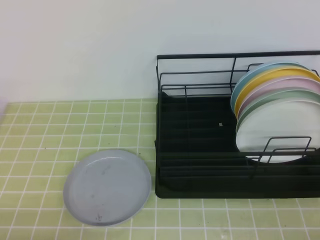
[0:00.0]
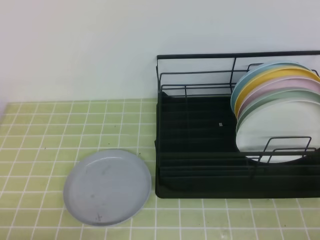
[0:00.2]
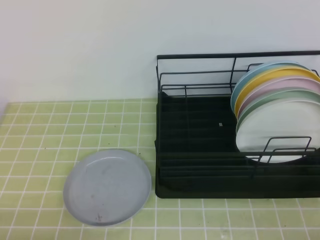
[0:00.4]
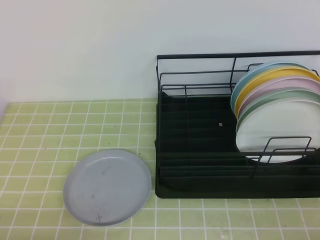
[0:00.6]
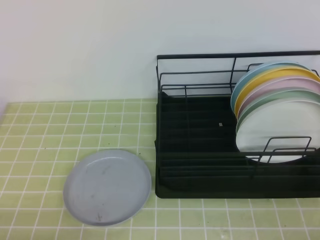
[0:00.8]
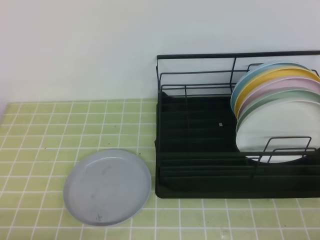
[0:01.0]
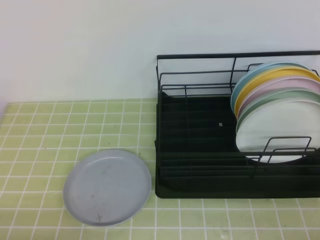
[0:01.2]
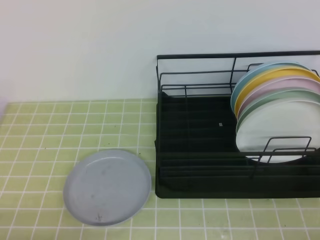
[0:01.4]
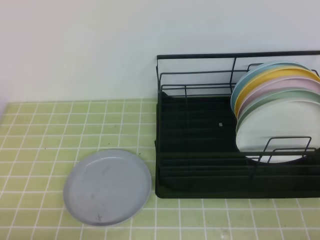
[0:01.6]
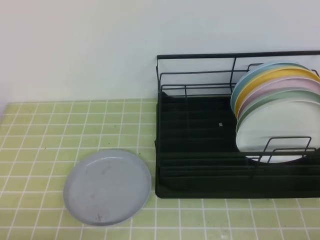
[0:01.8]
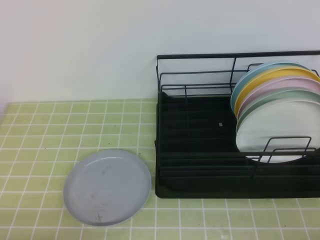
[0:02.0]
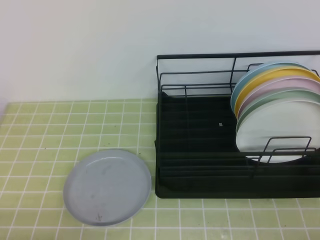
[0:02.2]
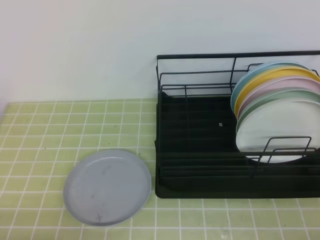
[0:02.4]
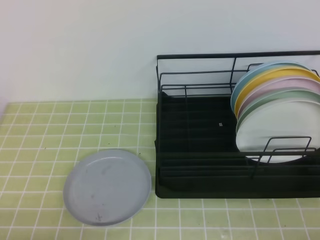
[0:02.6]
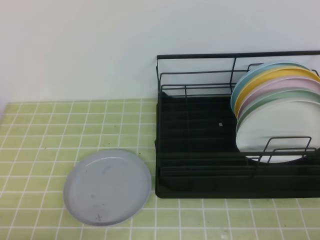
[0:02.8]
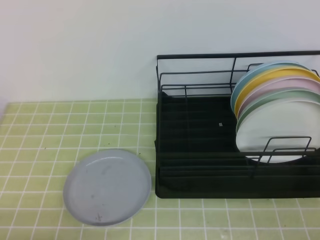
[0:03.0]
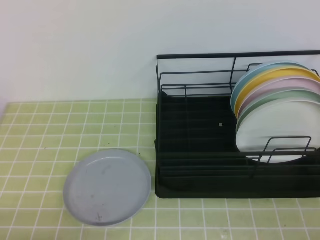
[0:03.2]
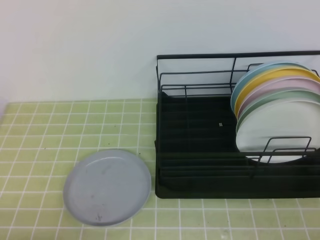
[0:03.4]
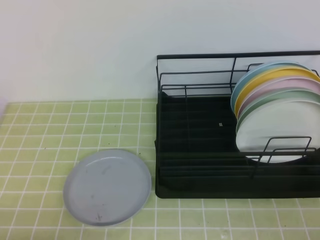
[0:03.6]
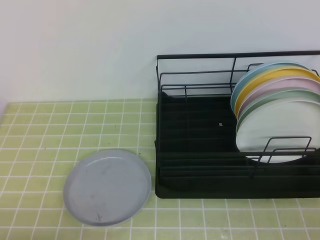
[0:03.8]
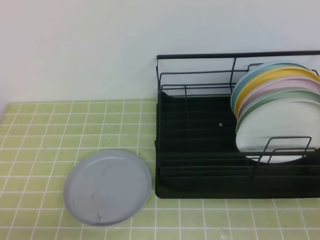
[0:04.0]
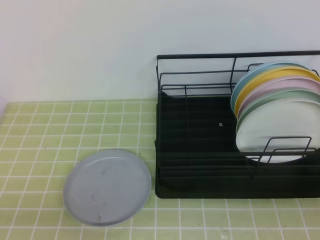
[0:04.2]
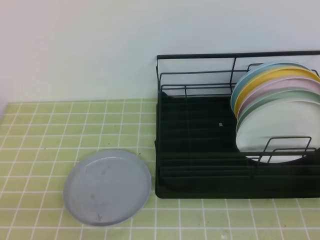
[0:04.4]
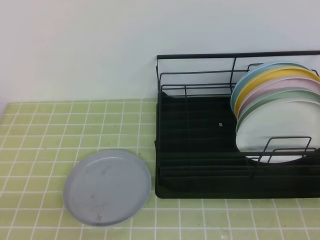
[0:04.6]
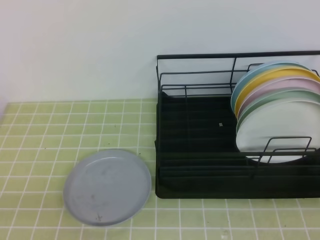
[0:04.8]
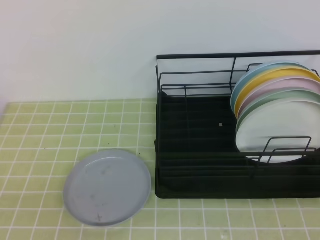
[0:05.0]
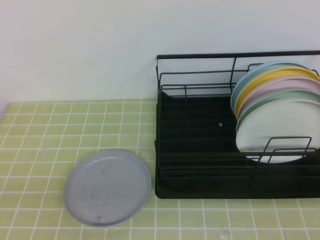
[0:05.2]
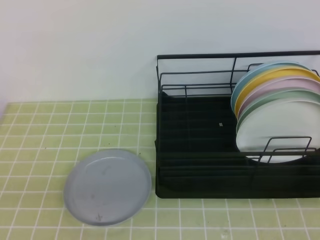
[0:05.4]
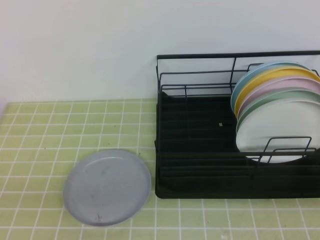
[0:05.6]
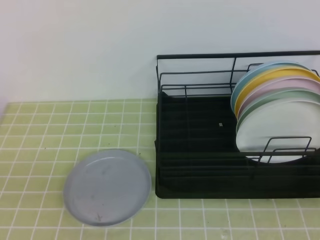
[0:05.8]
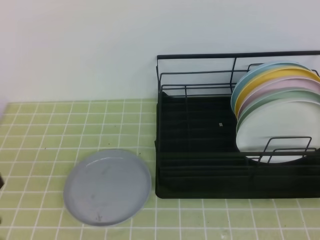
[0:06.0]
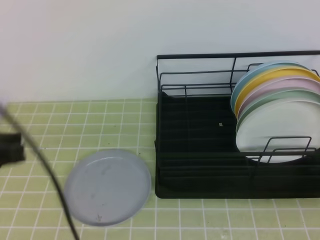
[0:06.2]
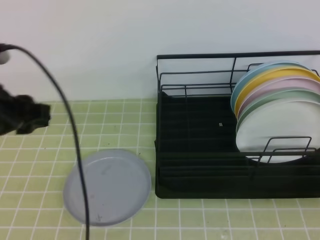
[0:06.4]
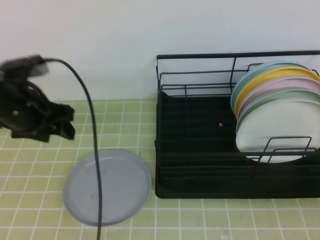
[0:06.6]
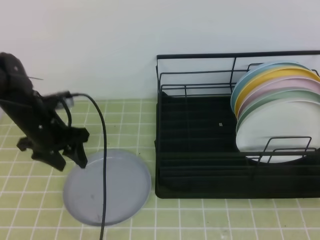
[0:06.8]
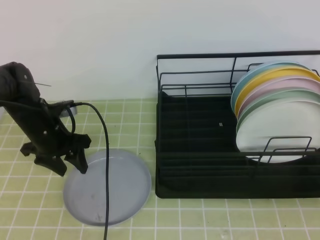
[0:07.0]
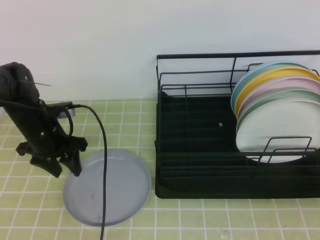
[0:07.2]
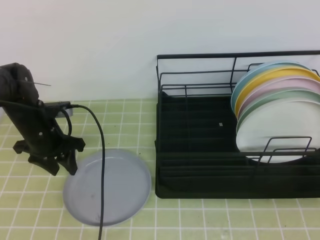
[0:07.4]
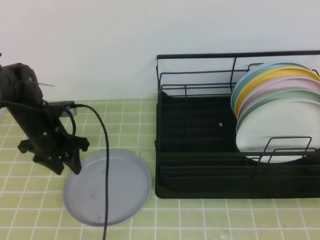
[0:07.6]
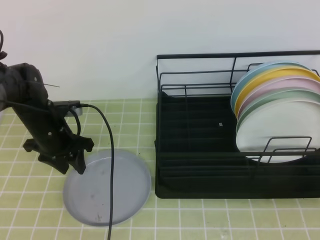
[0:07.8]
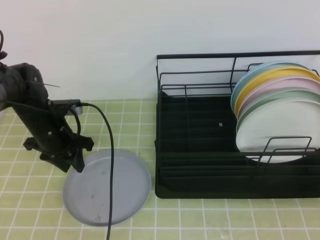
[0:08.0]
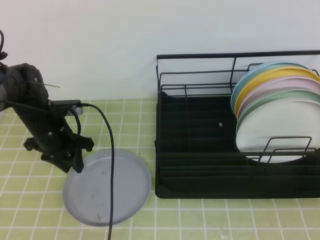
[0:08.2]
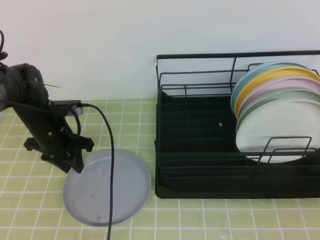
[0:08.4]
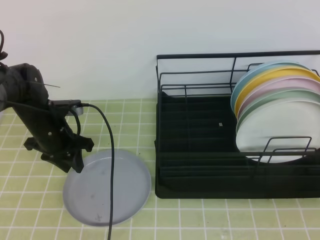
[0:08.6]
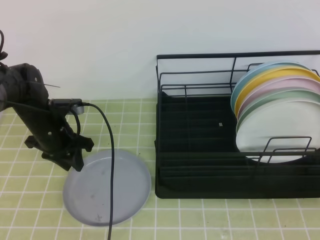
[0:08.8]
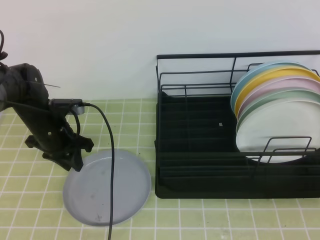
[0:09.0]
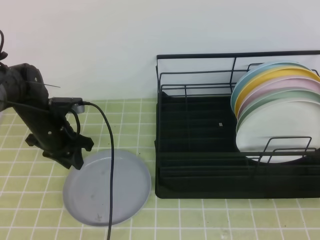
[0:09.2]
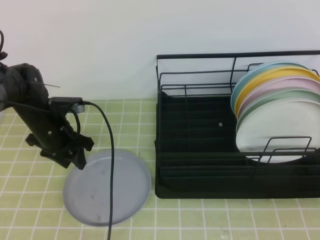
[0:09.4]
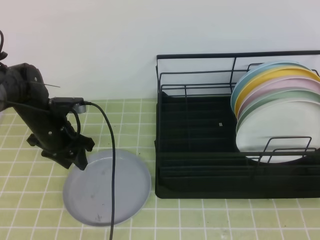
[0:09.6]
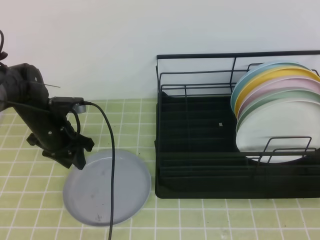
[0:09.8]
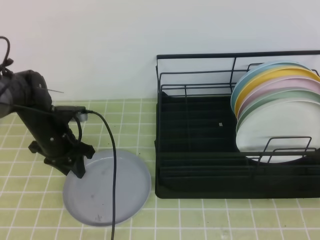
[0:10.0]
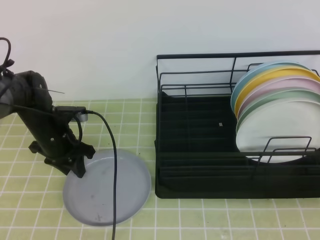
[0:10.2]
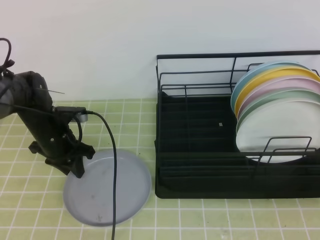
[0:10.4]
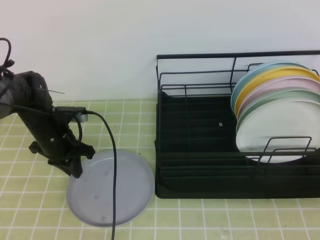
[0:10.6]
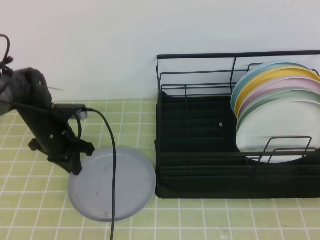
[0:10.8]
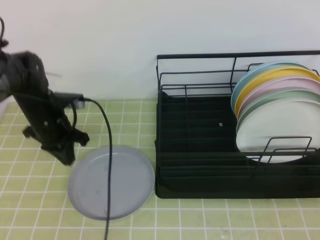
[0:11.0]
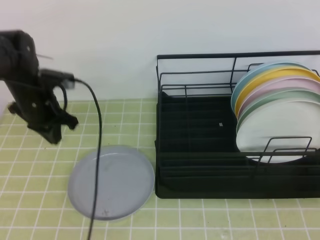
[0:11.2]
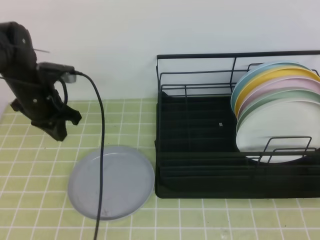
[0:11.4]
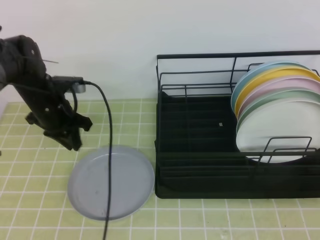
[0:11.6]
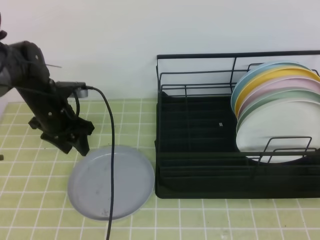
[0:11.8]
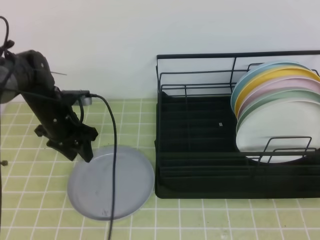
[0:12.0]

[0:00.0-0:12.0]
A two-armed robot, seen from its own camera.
0:00.0 to 0:03.0: Both grippers stay about where they are.
0:06.0 to 0:07.6: The left gripper is displaced forward and downward by roughly 35 cm, and opens its fingers.
0:07.6 to 0:09.0: The left gripper closes its fingers.
0:09.0 to 0:10.4: The grippers move only a little.
0:10.4 to 0:12.0: The left gripper opens.

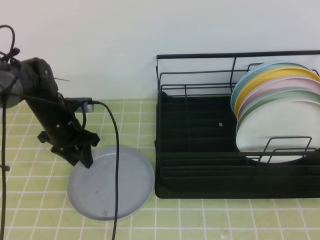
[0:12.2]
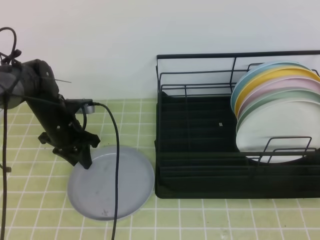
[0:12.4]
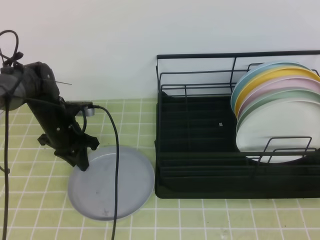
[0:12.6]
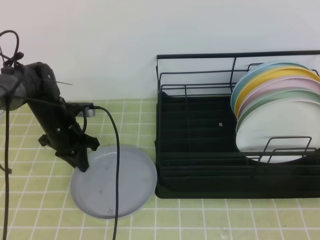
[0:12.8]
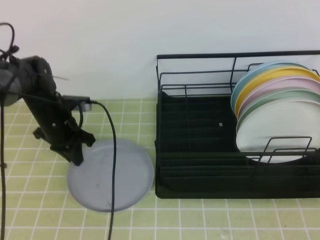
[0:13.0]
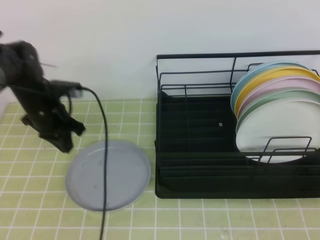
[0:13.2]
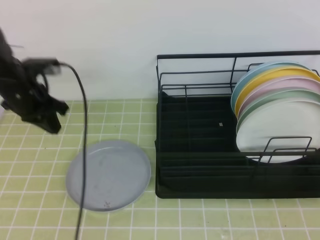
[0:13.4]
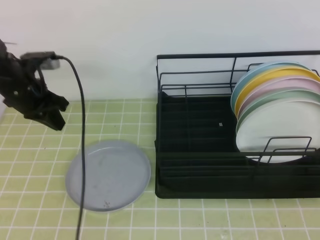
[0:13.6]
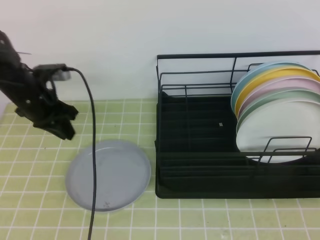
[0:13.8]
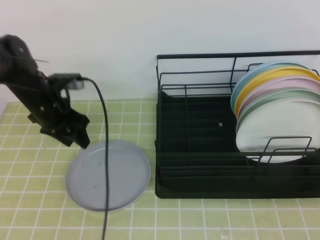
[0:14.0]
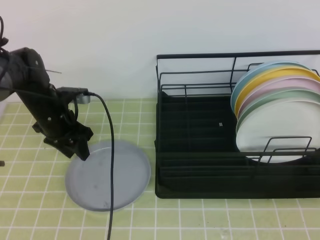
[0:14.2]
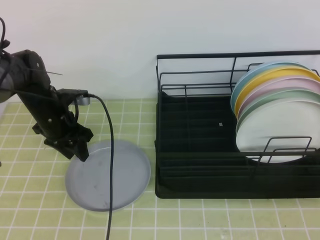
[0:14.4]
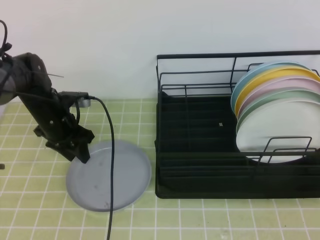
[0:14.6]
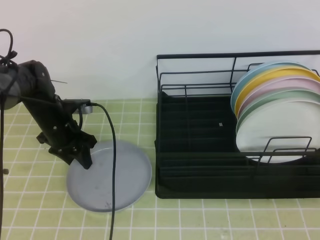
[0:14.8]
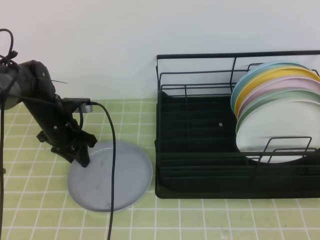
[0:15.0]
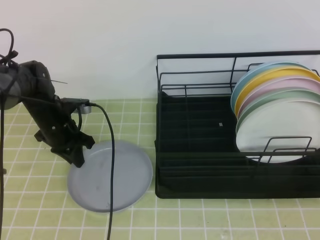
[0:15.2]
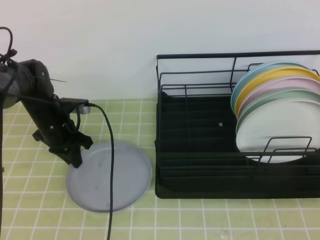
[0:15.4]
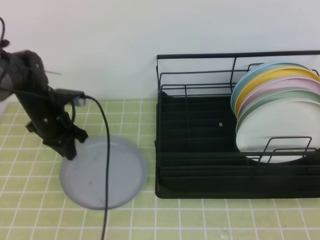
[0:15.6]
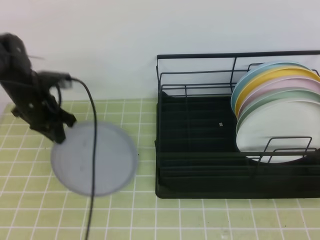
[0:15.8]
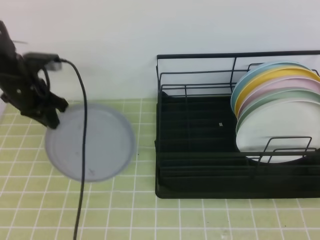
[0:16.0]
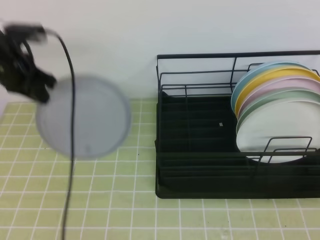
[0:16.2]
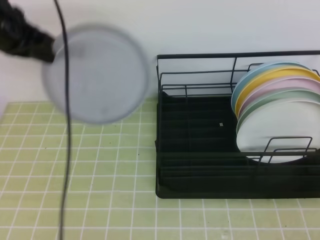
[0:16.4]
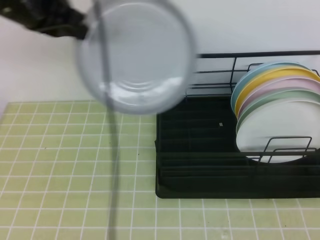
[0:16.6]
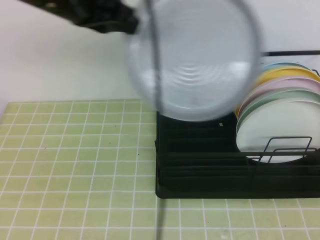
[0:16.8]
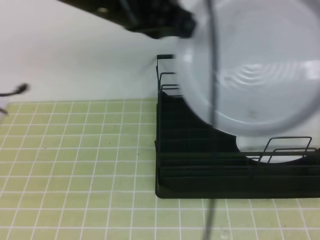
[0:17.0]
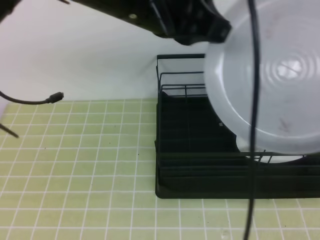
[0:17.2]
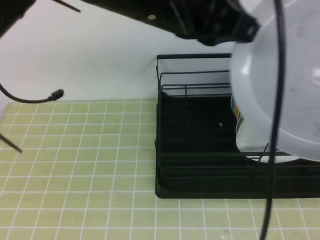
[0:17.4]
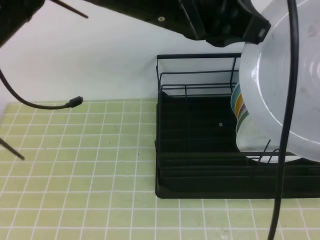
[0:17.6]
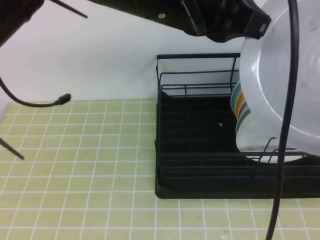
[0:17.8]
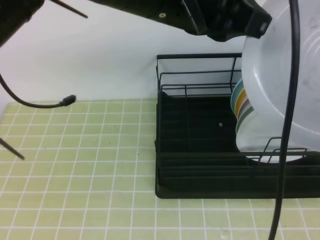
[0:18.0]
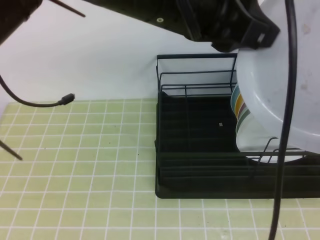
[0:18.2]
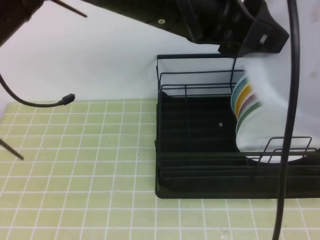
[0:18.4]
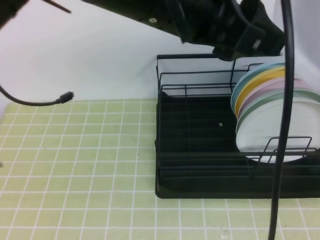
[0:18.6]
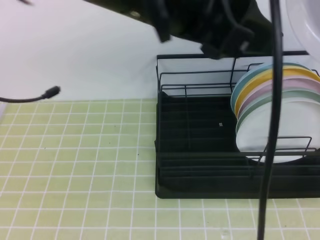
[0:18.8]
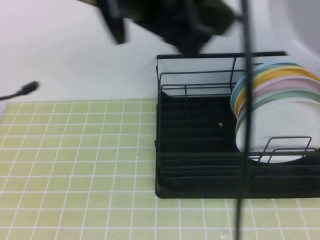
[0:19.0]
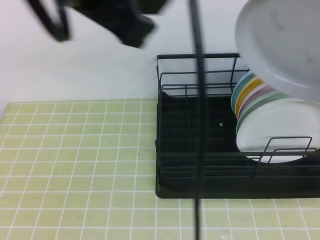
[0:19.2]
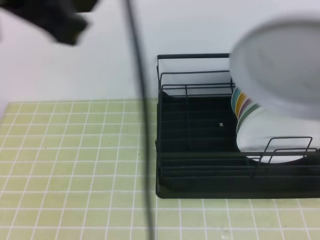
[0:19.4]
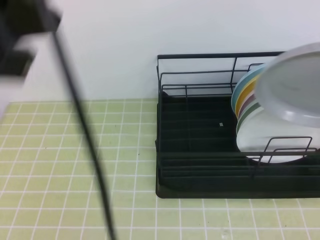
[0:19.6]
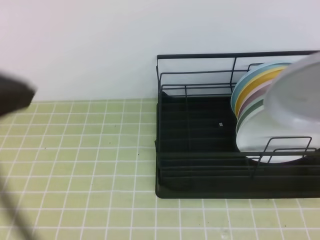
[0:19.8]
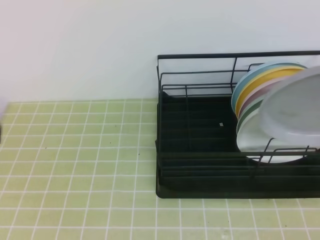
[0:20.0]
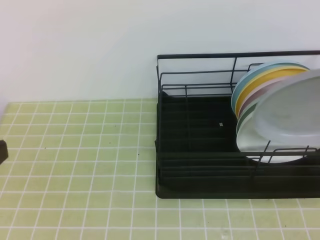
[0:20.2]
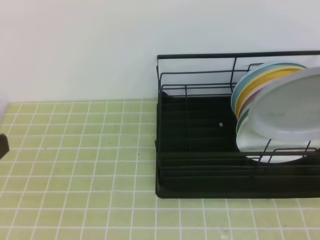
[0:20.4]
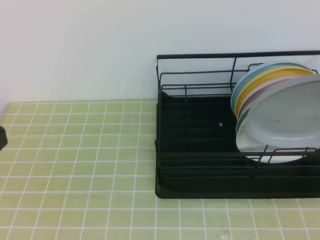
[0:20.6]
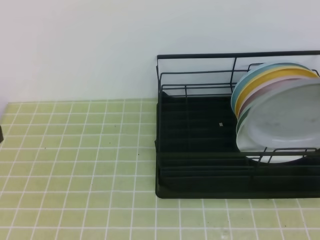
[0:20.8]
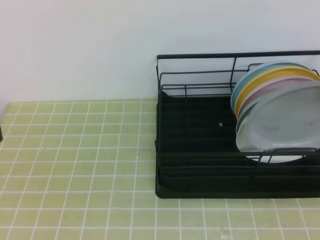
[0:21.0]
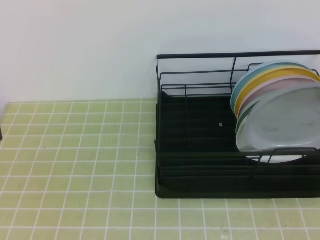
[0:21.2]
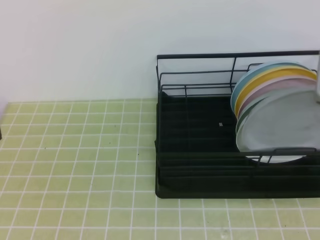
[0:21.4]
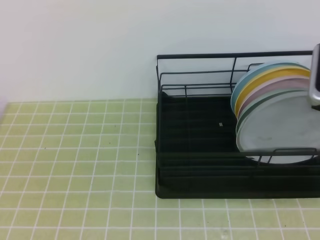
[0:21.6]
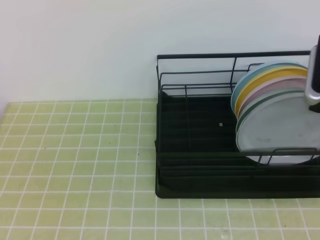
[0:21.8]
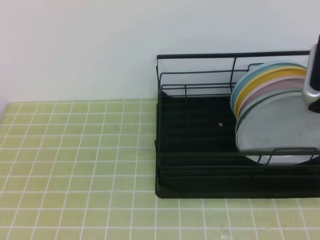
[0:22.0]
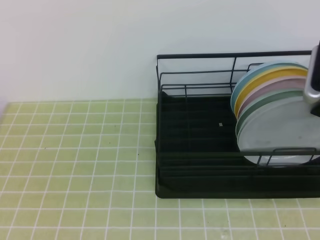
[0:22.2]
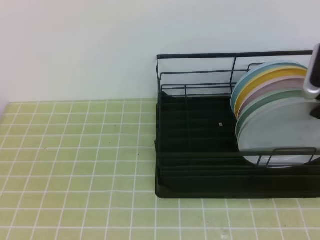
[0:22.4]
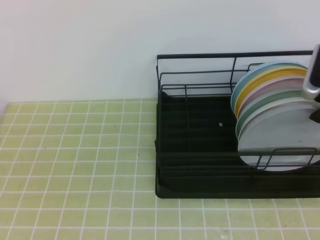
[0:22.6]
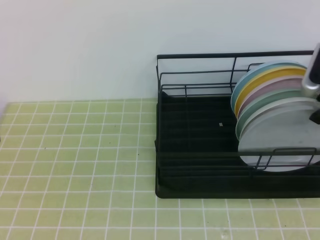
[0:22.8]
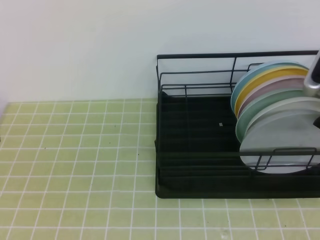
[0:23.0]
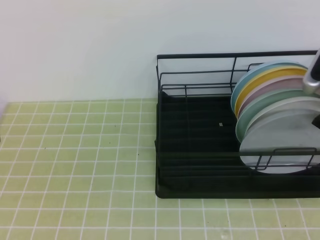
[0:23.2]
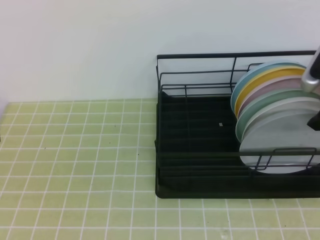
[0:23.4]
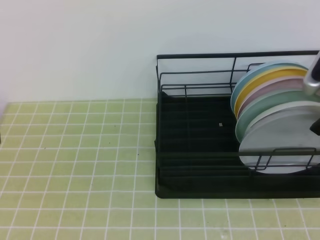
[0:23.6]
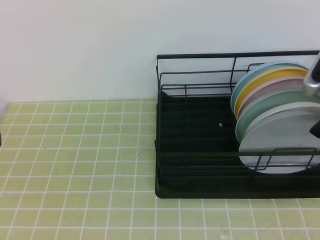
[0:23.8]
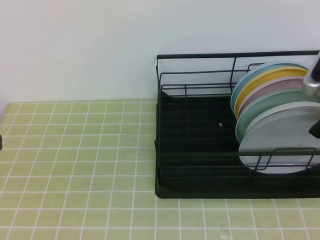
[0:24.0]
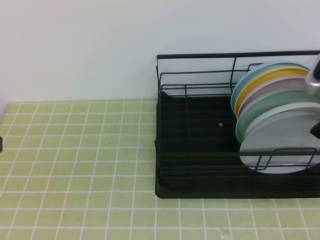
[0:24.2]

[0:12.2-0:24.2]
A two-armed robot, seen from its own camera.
0:12.2 to 0:13.8: The left gripper shifts about 5 cm upward, and closes its fingers.
0:13.8 to 0:15.2: The left gripper shifts approximately 10 cm downward, and opens, then closes once more.
0:15.2 to 0:16.6: The left gripper moves upward, roughly 25 cm.
0:16.6 to 0:18.2: The right gripper shifts by roughly 5 cm, and opens, then closes again. The left gripper is displaced to the right and backward by roughly 20 cm, and opens up.
0:18.2 to 0:19.8: The right gripper heads forward and upward, covering roughly 15 cm; the left gripper heads to the left and backward, covering approximately 20 cm, and closes up.
0:19.8 to 0:21.2: The right gripper is displaced forward and downward by about 15 cm. The left gripper moves downward, approximately 10 cm.
0:21.2 to 0:22.6: The right gripper opens up.
0:22.6 to 0:24.2: The right gripper opens up.
